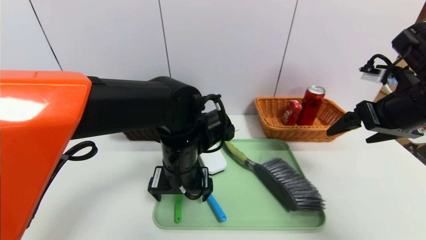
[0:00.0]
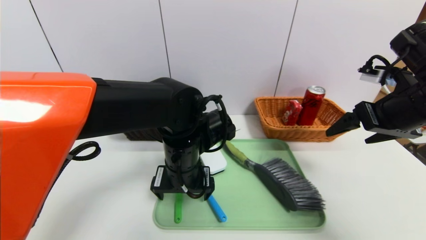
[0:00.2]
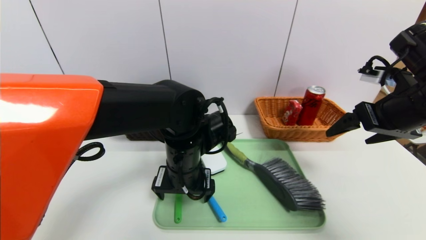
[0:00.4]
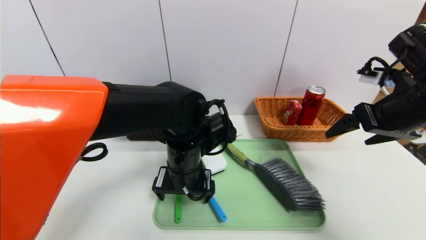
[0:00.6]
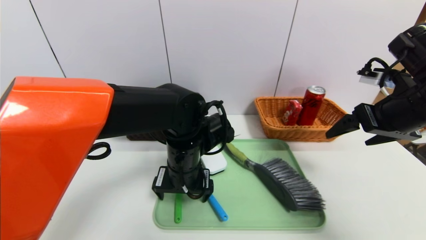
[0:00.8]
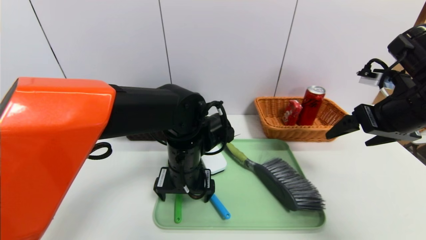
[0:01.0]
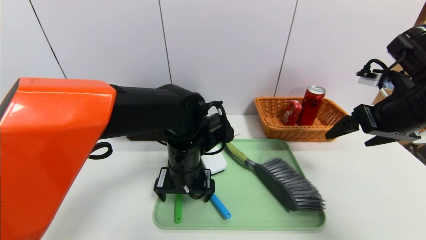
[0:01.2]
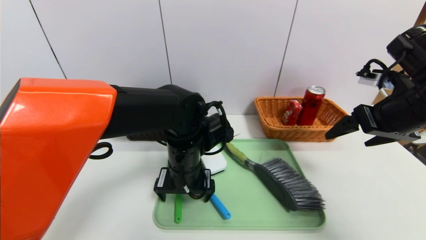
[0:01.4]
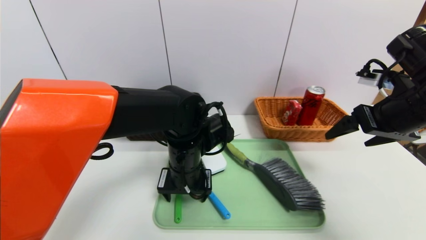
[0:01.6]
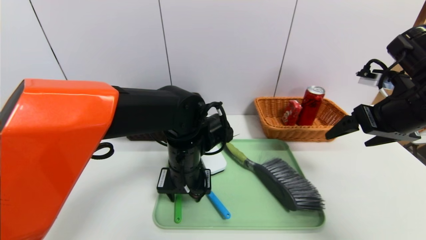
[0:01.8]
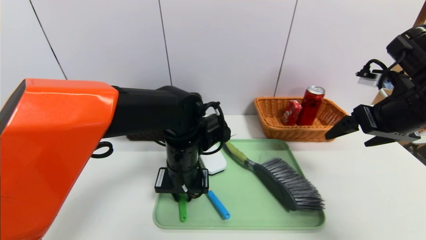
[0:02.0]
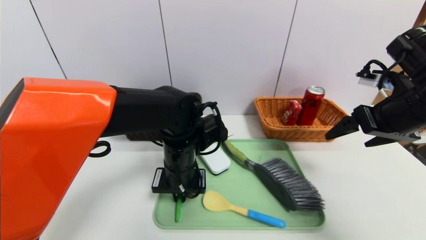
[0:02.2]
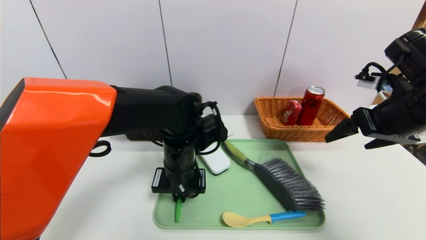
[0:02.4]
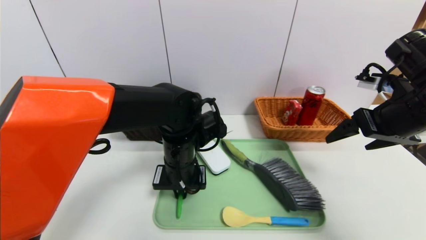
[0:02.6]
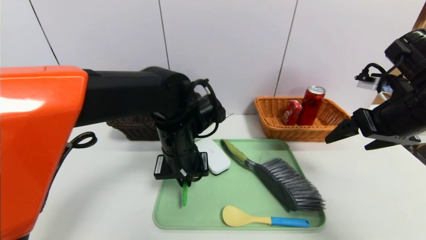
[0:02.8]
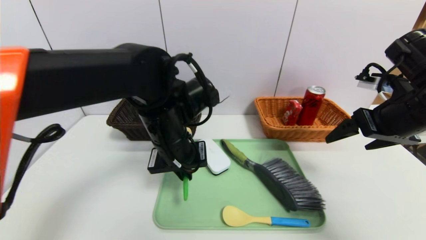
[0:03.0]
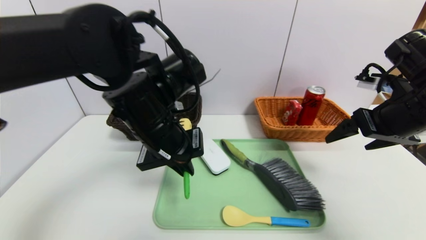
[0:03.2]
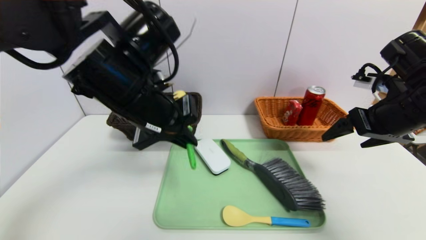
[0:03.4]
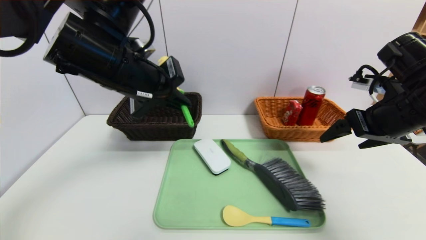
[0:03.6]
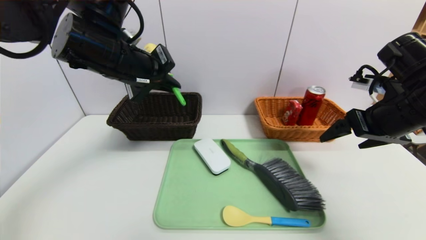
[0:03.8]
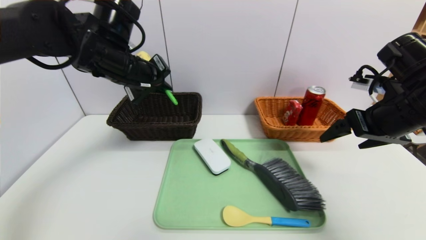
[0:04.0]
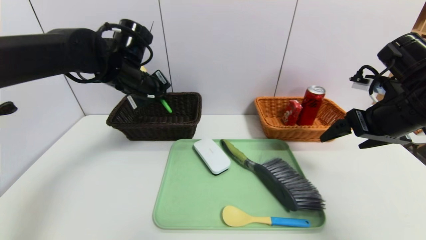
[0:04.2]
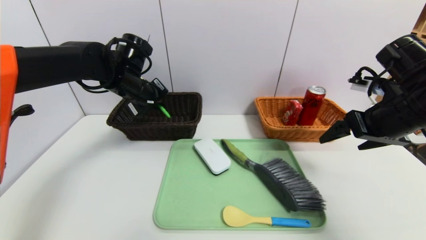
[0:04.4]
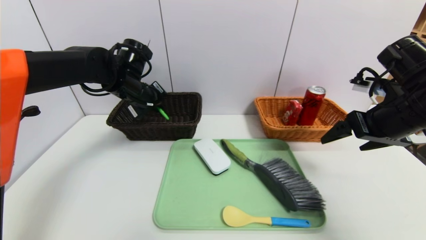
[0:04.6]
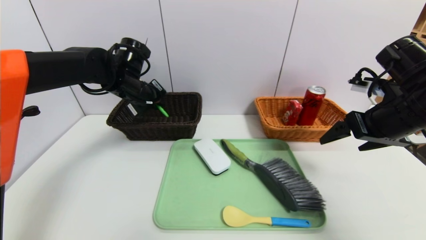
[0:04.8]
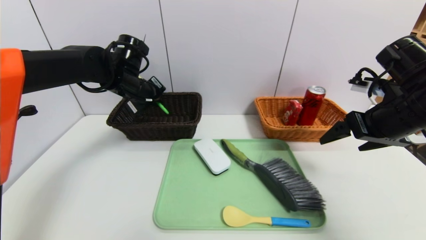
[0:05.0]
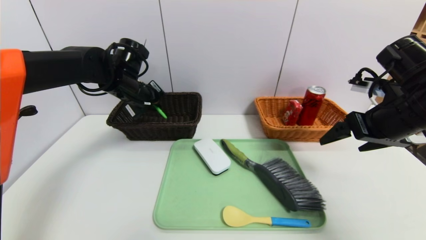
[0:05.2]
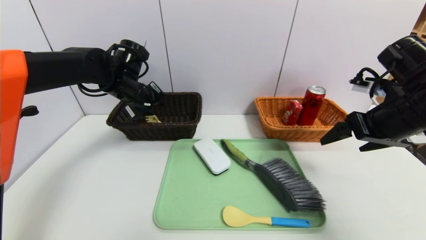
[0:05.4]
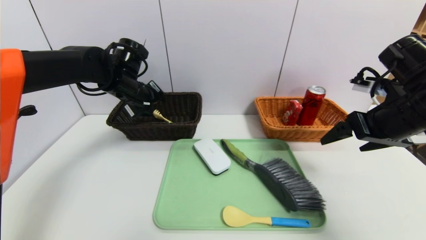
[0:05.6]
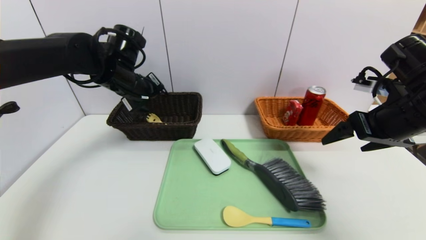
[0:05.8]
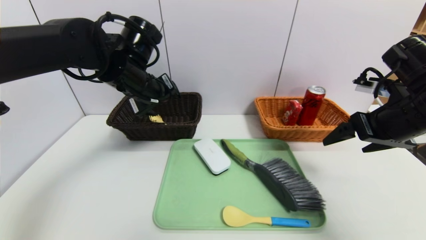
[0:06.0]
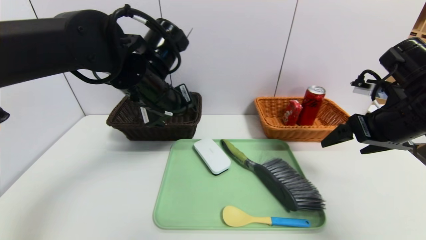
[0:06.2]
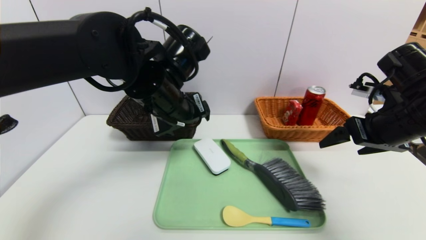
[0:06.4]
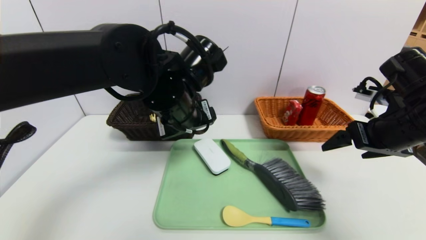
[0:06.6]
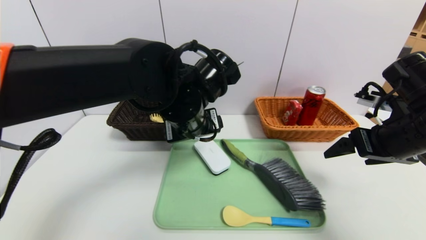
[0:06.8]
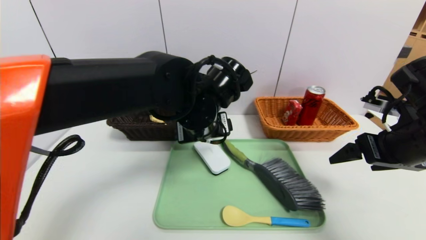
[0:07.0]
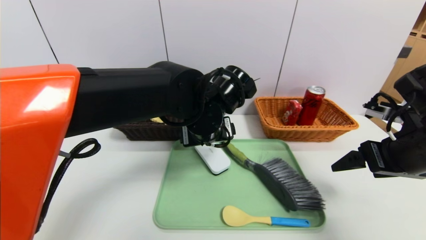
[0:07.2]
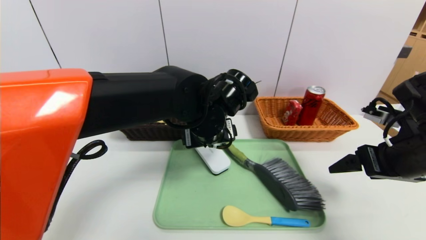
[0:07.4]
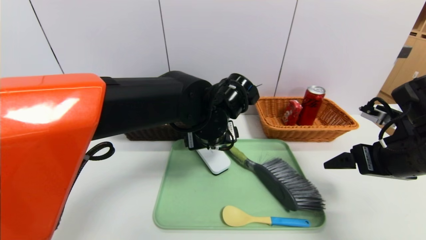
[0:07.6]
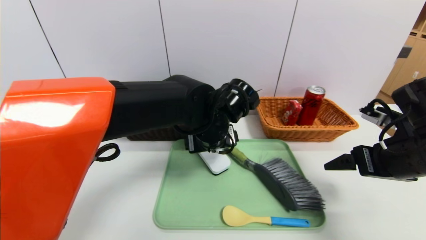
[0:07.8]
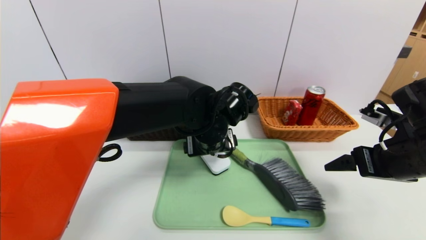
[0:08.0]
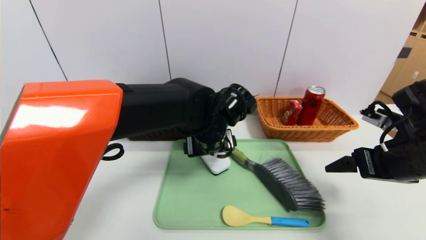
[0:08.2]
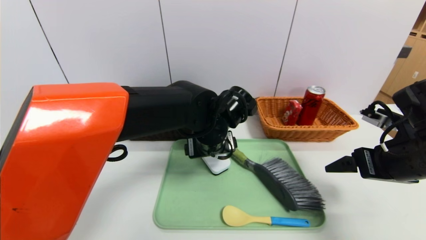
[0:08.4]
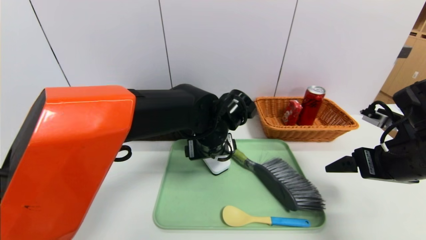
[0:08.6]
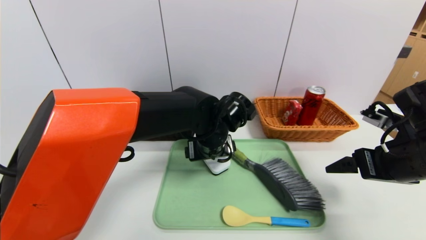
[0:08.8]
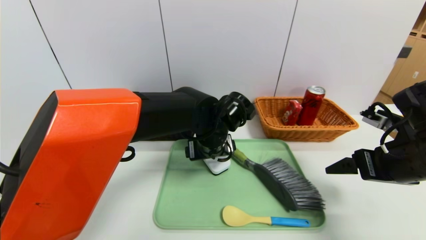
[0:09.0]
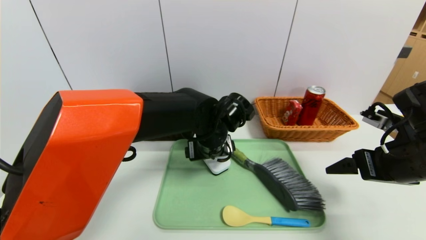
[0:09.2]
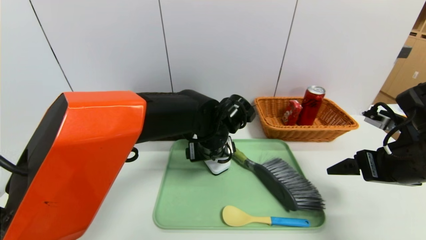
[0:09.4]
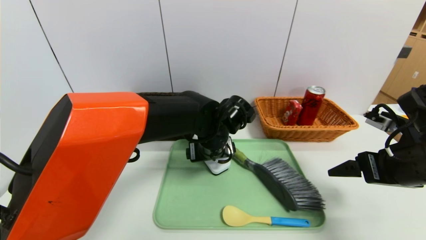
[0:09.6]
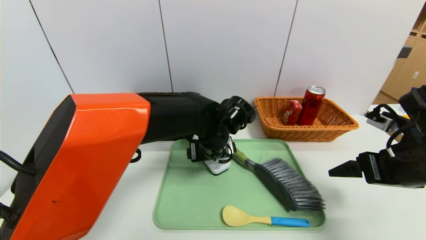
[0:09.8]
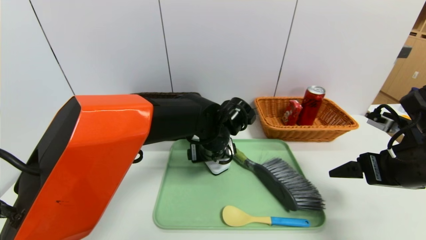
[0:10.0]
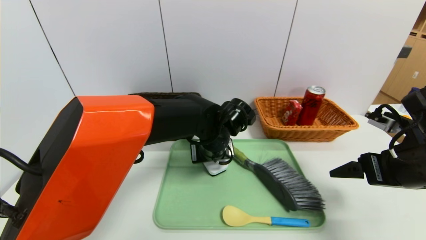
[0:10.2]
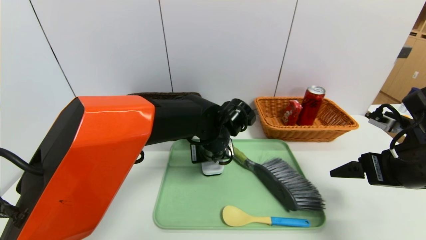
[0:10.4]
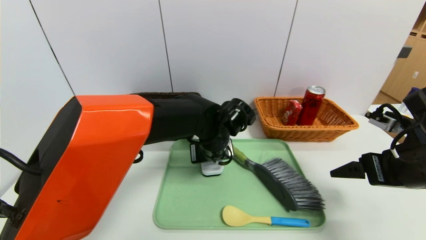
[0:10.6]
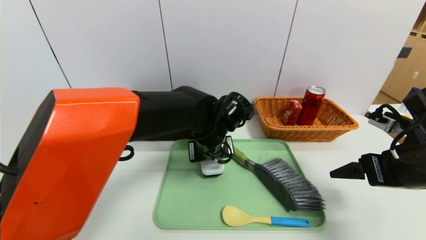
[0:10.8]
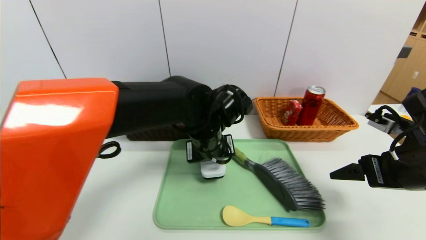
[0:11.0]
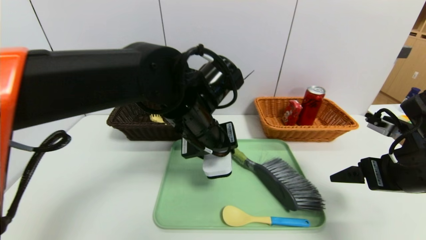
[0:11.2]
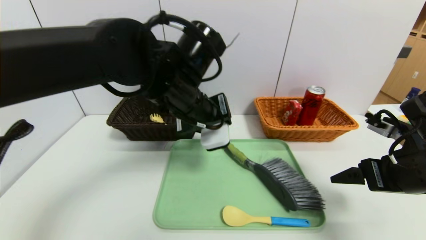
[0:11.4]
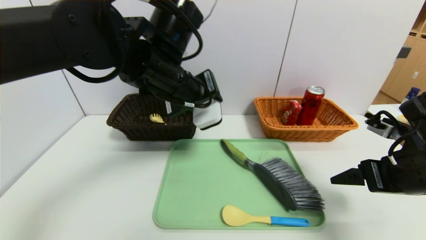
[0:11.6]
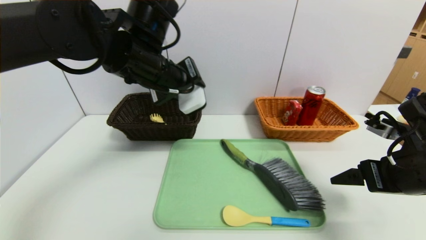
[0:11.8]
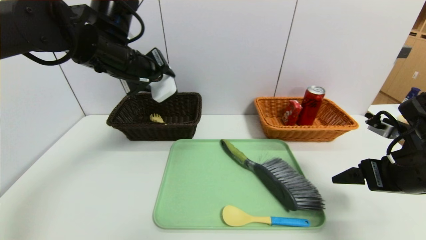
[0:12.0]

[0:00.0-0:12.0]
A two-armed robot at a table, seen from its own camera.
Task of the whole recording: place the food in the right basket with the right gripper, and place the non food items in the left basket with the left gripper.
Step, 0:00.0 to 0:05.6: Grasp the back scratcher and put it in the left basket.
0:00.0 to 0:01.6: The grippers move only a little.
0:01.6 to 0:03.0: The left gripper travels upward by some 5 cm, and closes up.
0:03.0 to 0:04.4: The left gripper moves forward and to the left, roughly 15 cm.
0:04.4 to 0:06.0: The left gripper shifts by approximately 5 cm, and opens up.
0:06.0 to 0:07.6: The left gripper shifts approximately 15 cm to the right and downward; the right gripper heads downward, covering roughly 5 cm.
0:09.0 to 0:10.4: The left gripper closes its fingers.
0:10.4 to 0:12.0: The left gripper moves upward and to the left, about 25 cm.

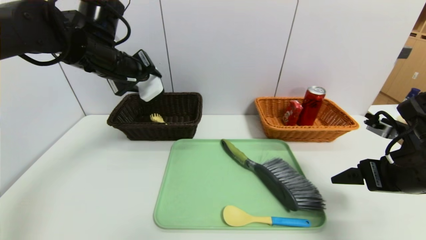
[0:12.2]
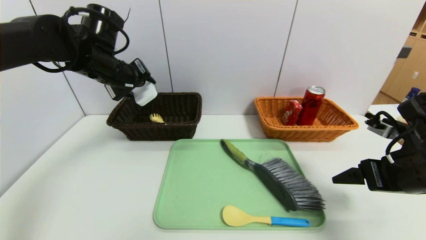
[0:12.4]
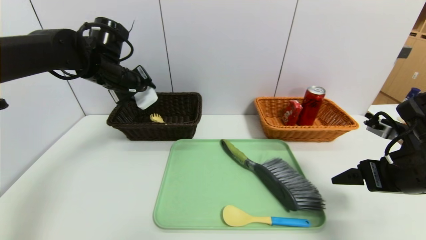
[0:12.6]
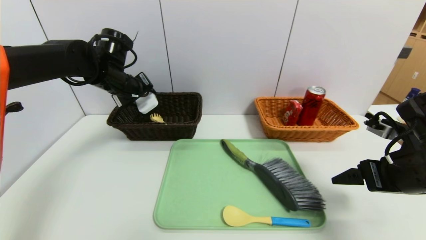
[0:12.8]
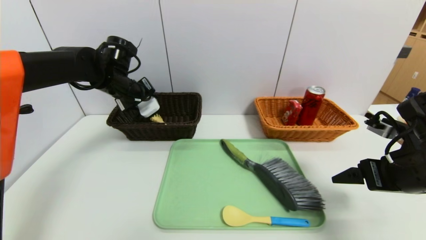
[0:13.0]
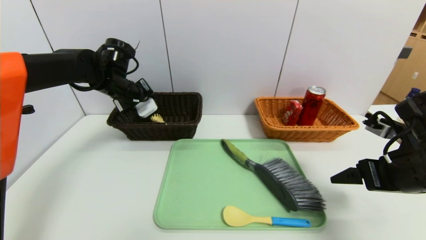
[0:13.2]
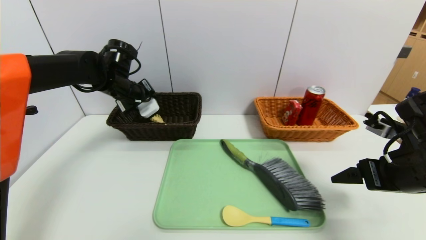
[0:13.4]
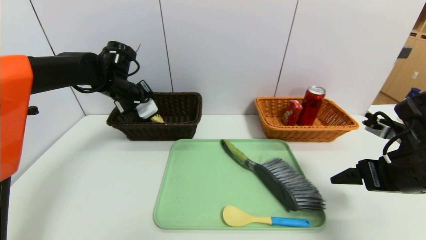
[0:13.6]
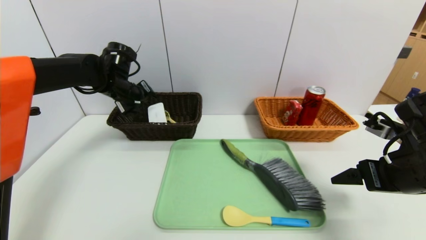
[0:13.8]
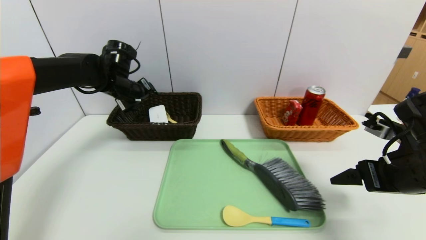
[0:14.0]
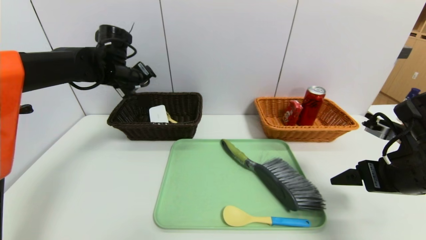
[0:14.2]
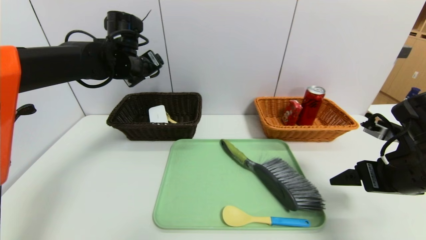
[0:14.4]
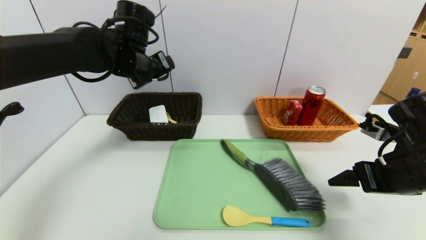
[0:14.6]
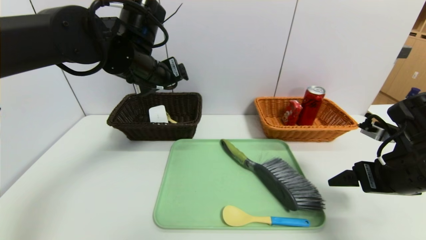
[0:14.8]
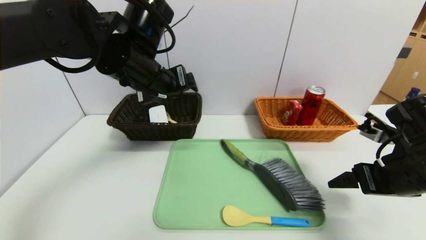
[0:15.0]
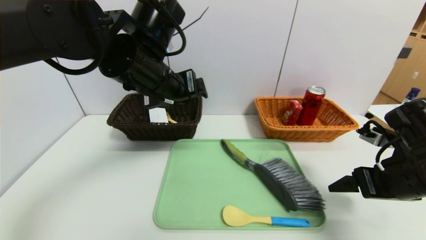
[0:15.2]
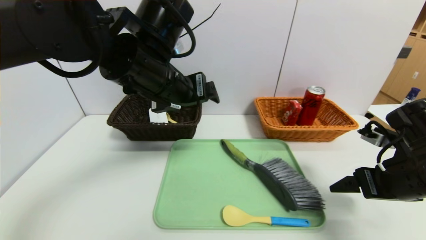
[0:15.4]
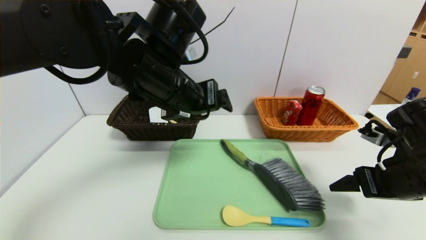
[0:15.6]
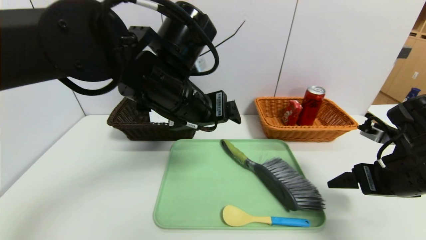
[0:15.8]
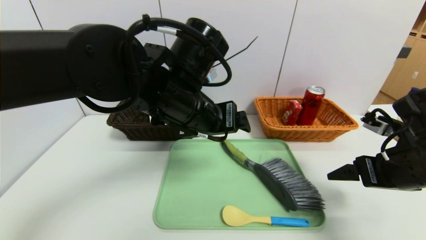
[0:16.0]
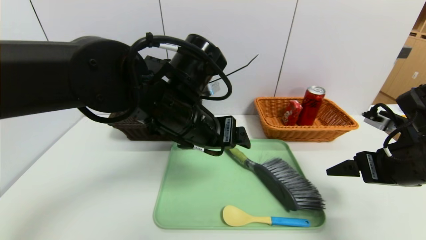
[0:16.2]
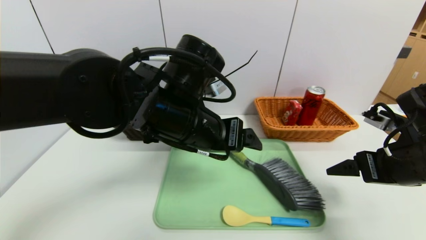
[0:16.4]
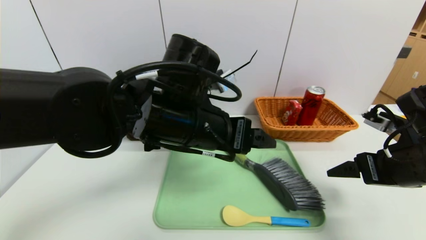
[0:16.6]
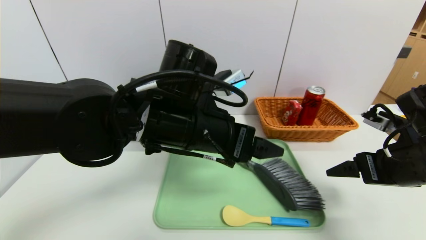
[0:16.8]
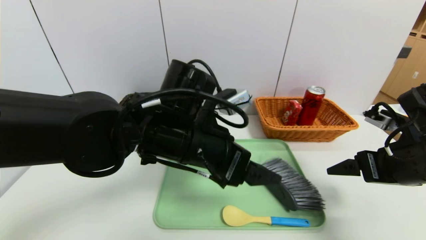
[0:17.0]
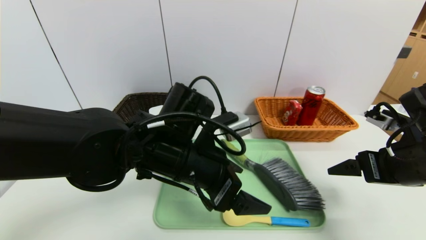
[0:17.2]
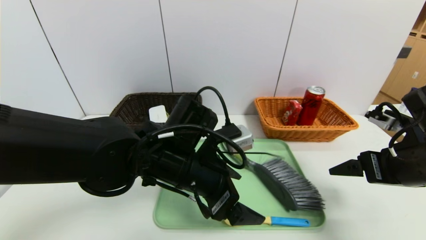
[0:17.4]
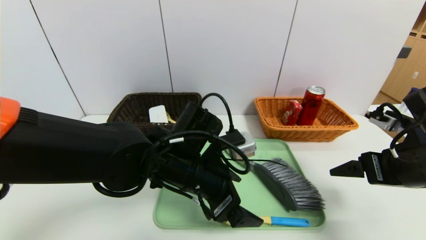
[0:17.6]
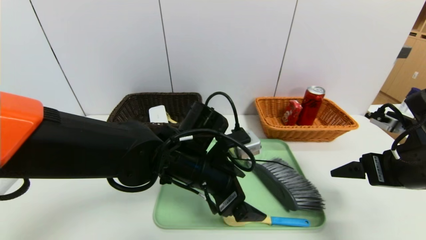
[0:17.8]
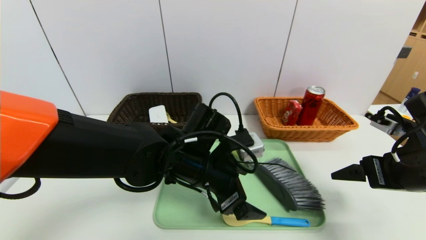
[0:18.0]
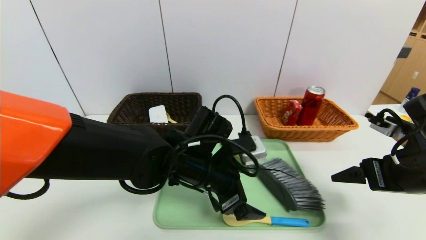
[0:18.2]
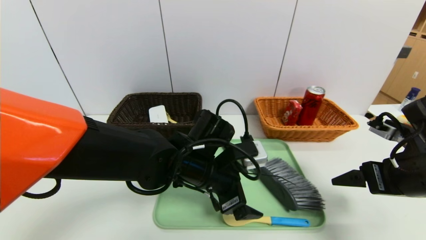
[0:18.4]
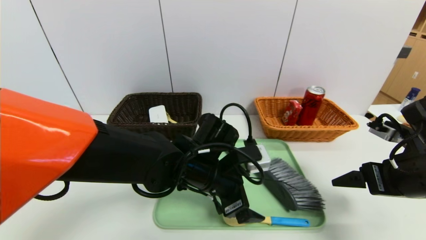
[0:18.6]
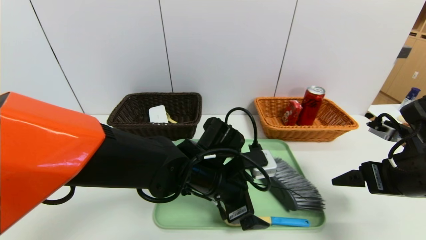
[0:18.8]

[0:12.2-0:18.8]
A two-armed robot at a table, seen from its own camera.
Task of the whole recording: place the food in the right basket with the right gripper, and place the non food items in the left basket with the left gripper.
0:12.2 to 0:13.8: The left gripper travels downward and forward by approximately 10 cm.
0:13.8 to 0:15.4: The left gripper shifts approximately 25 cm backward, to the right and upward.
0:15.4 to 0:17.2: The left gripper is displaced downward by some 10 cm.
0:17.2 to 0:18.8: The left gripper travels downward by about 5 cm.
